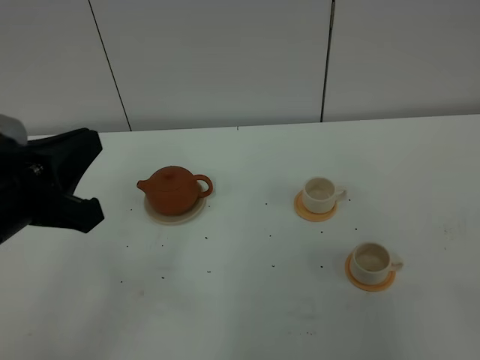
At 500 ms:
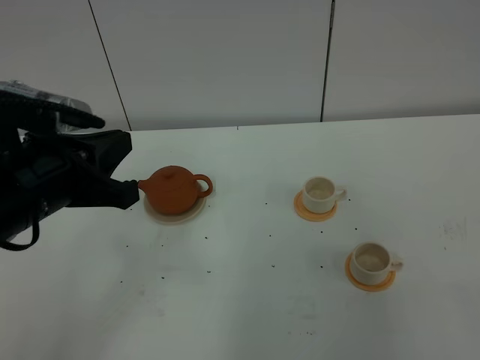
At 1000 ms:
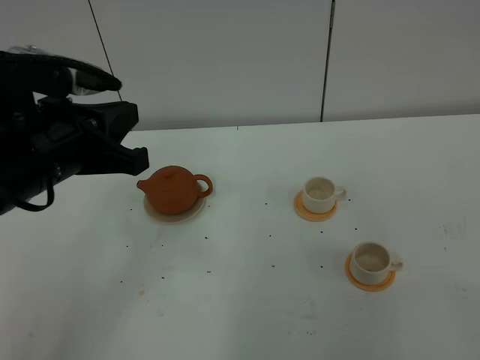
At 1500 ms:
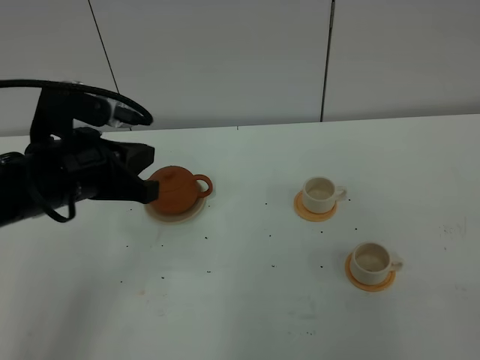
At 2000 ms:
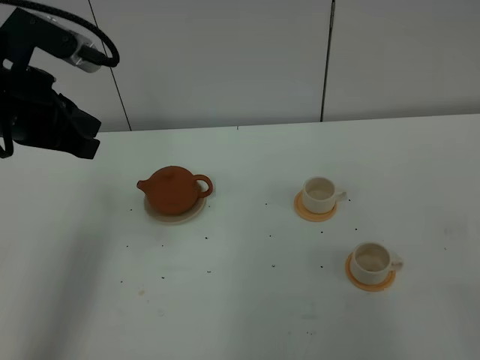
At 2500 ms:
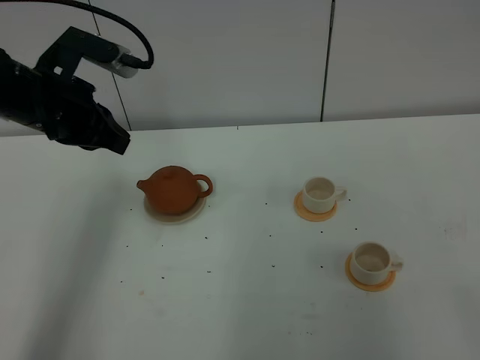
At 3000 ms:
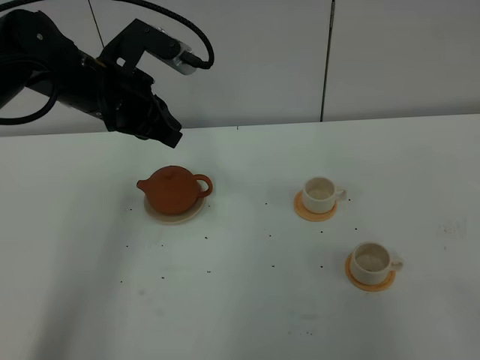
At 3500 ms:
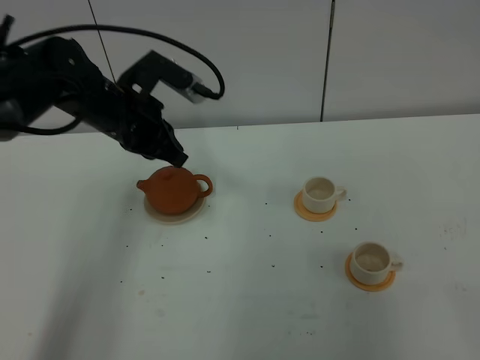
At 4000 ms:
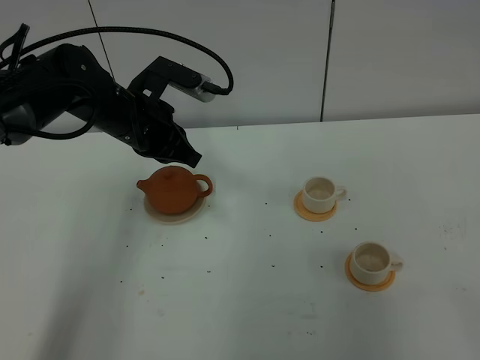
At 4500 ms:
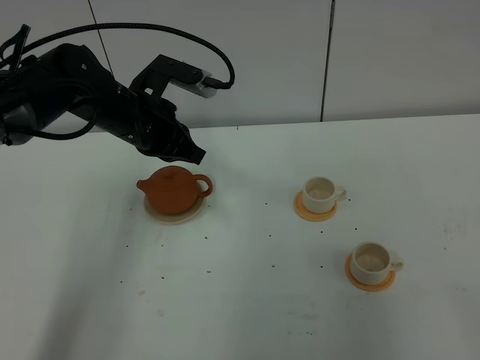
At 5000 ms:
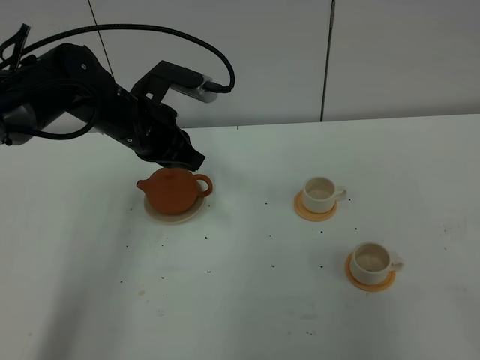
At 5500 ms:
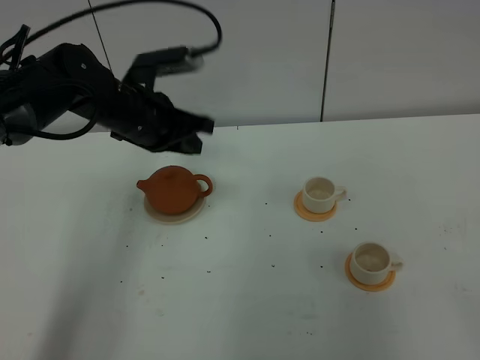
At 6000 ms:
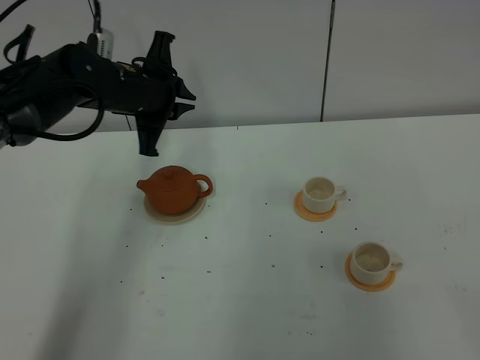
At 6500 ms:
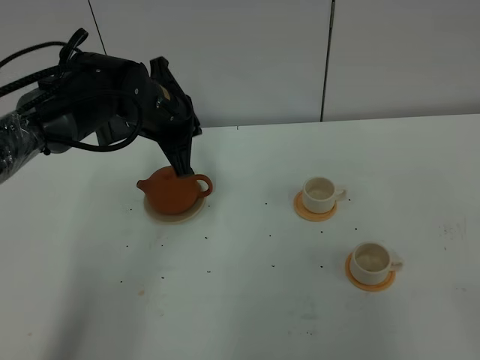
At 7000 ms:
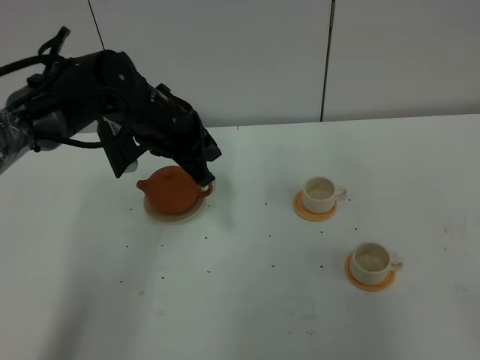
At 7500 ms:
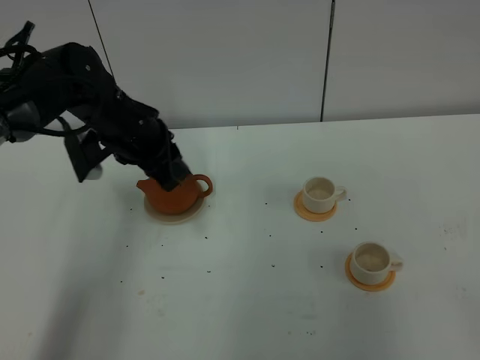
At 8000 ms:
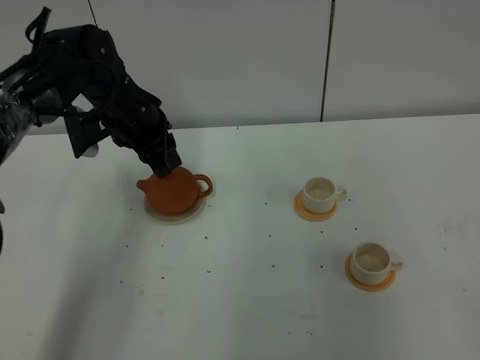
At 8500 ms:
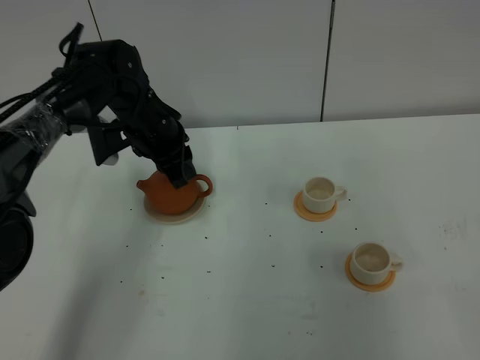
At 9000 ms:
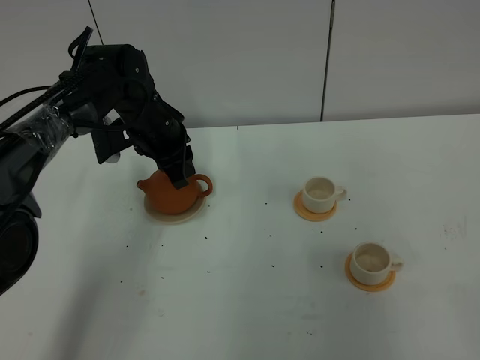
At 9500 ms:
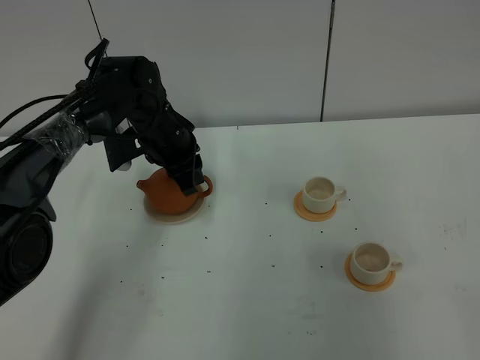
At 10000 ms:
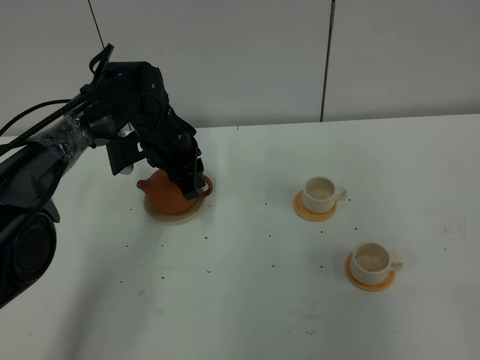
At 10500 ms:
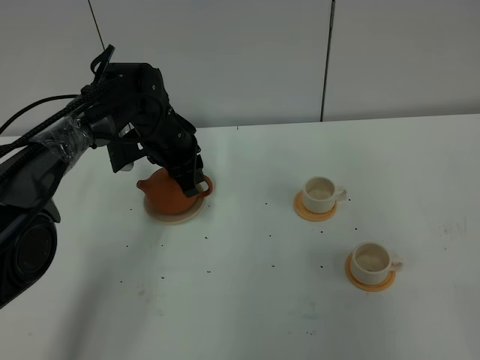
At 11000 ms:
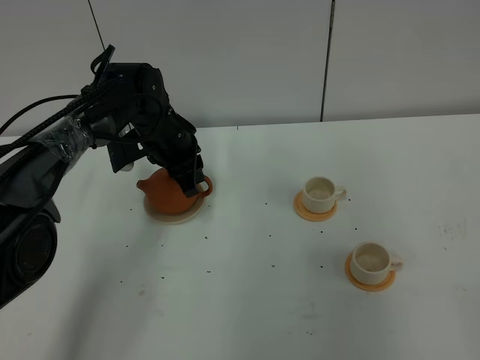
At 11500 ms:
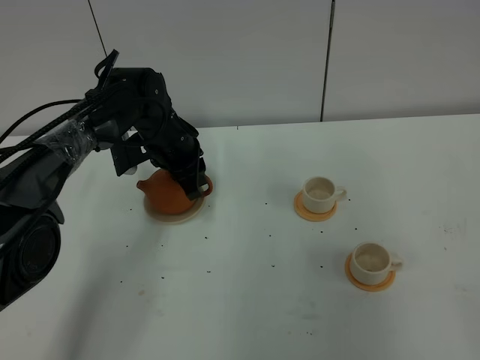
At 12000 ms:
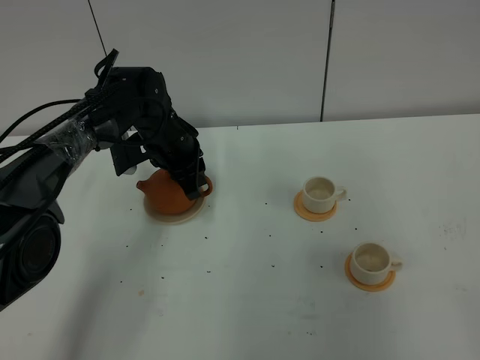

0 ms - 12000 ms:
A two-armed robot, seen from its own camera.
Task of the whole recording: grasp the brown teapot and pour the tea into the two white teacups one by one, put the brown teapot back in its original place.
0 ms - 2000 ms: The left gripper is displaced forward by some 15 cm.
2000 ms - 4000 ms: The left gripper moves downward, forward and to the right, approximately 15 cm.
6000 ms - 8000 ms: The left gripper opens up.
8000 ms - 10000 ms: The left gripper moves downward, some 5 cm.
10000 ms - 12000 ms: The two grippers keep their place.

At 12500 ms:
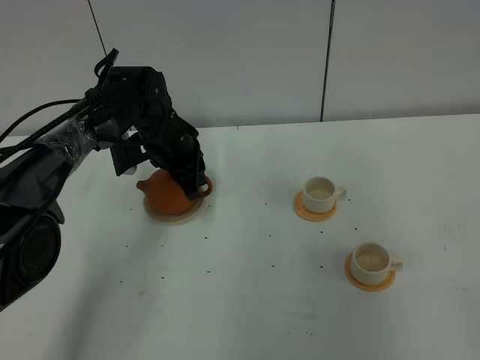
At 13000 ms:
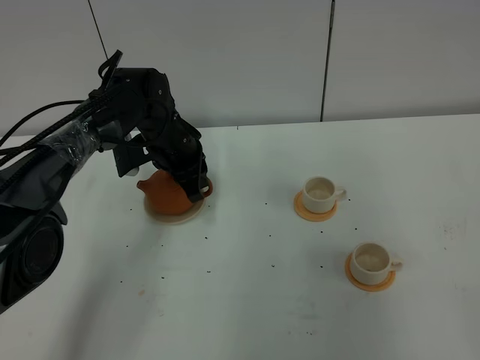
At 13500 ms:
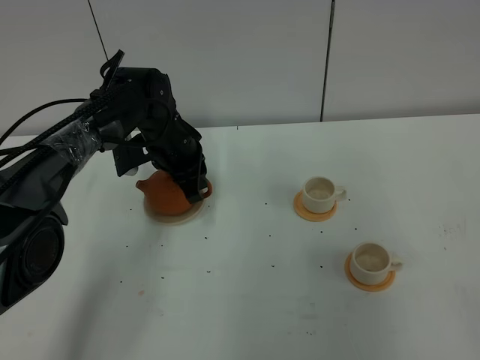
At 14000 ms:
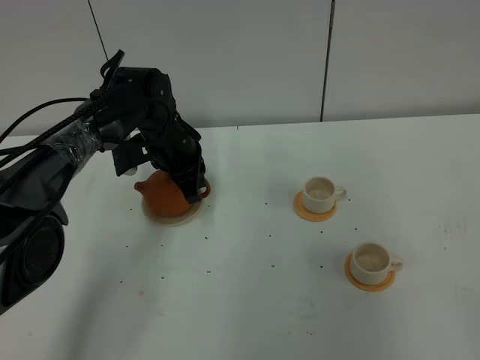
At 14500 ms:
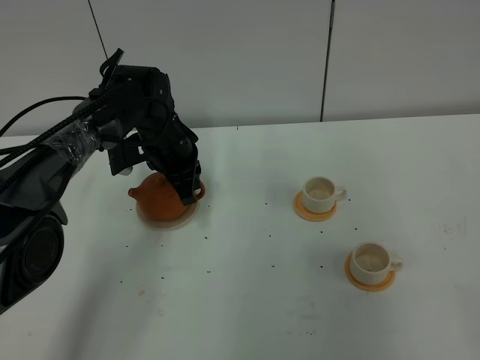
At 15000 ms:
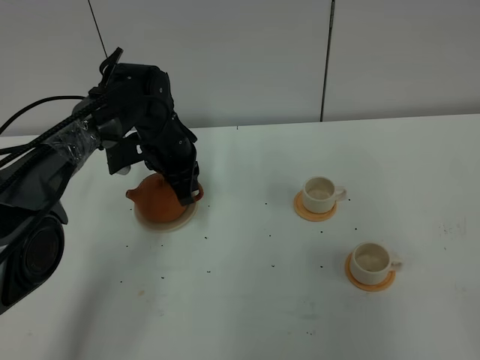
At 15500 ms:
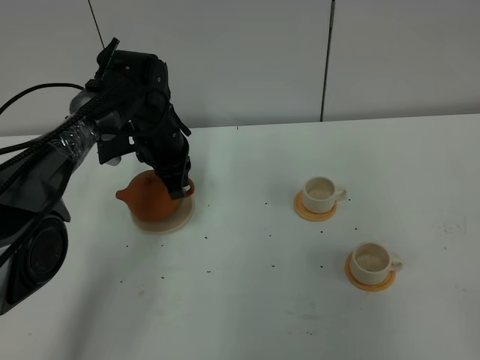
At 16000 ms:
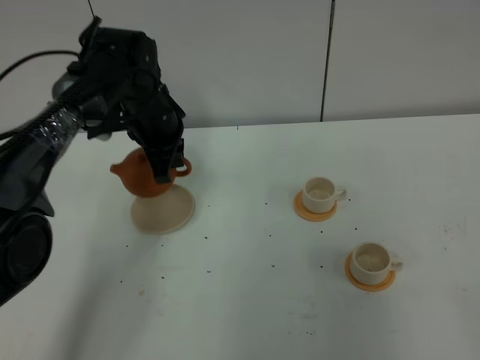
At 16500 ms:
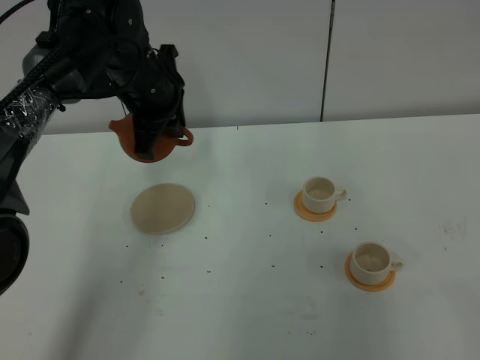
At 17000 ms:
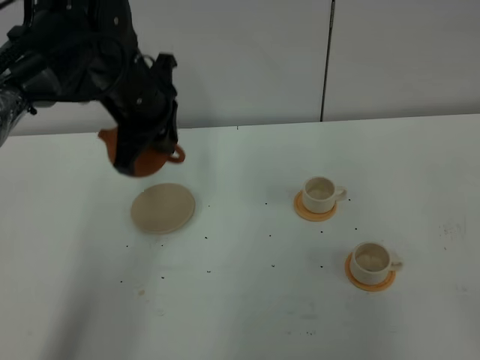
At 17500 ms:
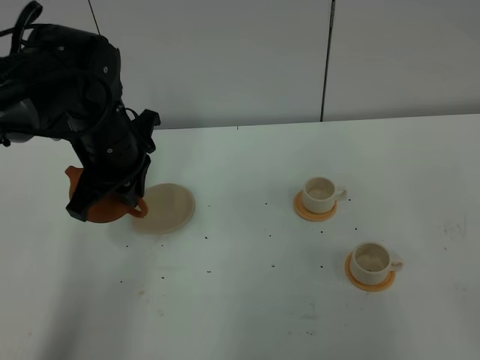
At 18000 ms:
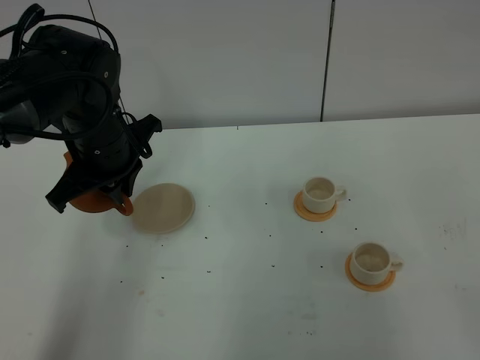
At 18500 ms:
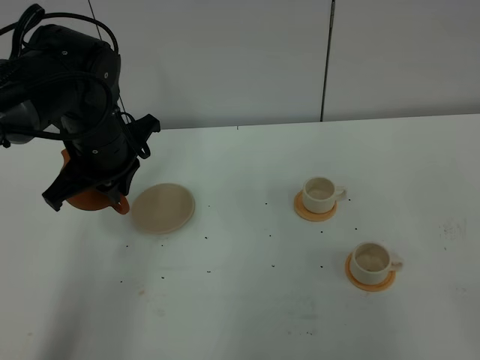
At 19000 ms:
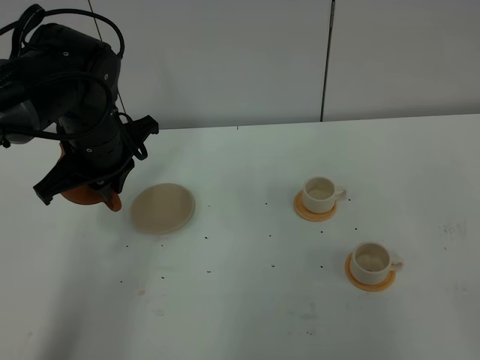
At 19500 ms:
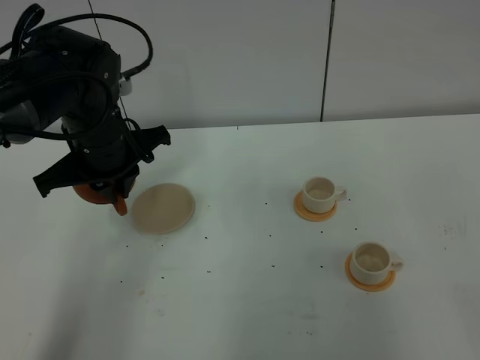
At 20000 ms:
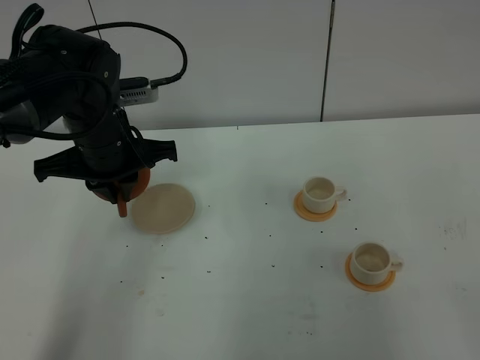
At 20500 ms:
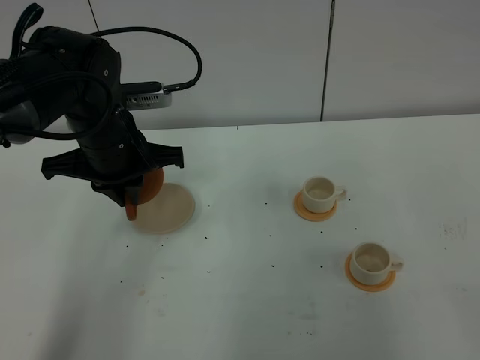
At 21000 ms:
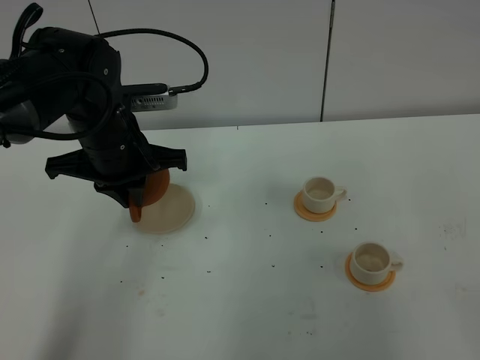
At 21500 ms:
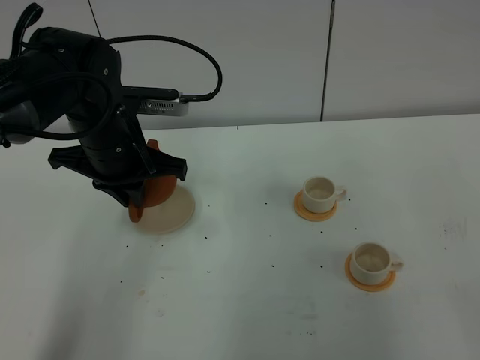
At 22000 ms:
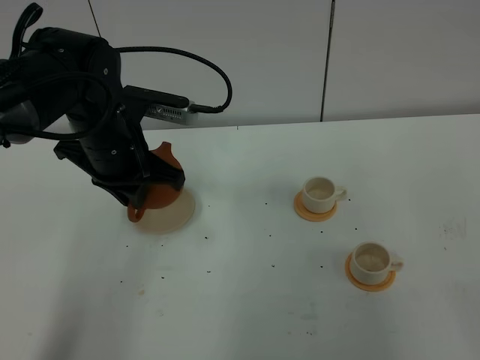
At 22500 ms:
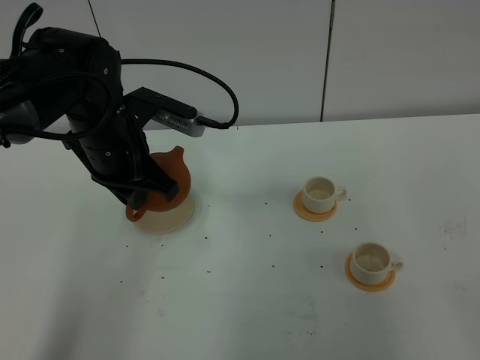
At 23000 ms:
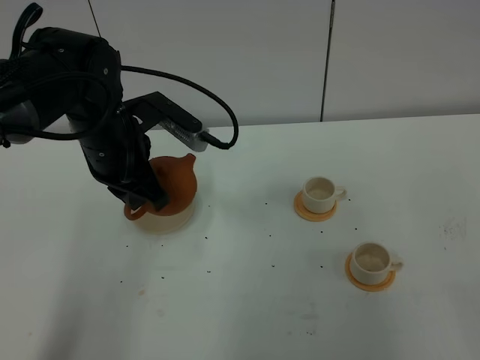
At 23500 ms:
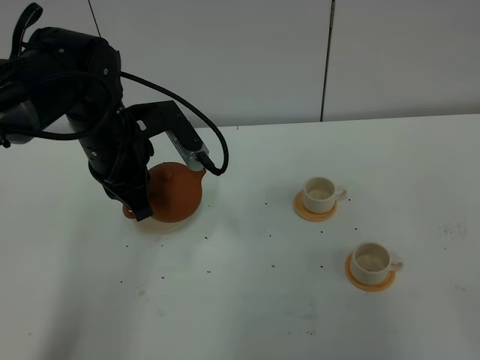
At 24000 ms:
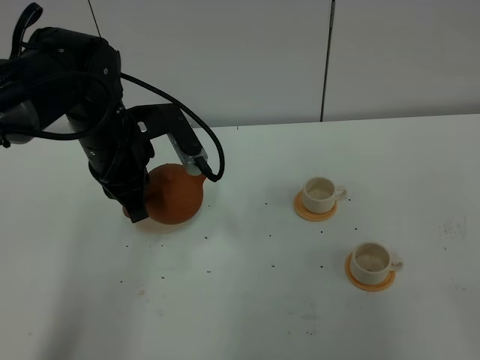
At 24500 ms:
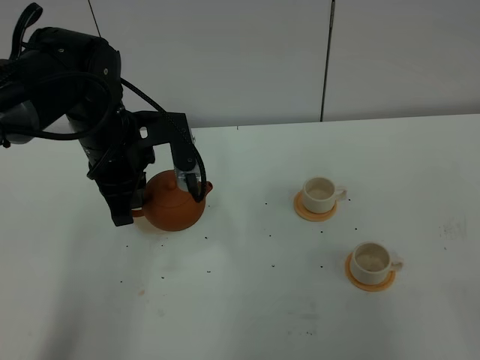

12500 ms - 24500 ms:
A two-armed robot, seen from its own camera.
Task of the whole recording: grasp the brown teapot and pour the tea into the two white teacups one by one, put the brown teapot back in its original place.
Step, 12500 ms - 15500 ms: Pick up the teapot with the left gripper.
12500 ms - 14500 ms: The left gripper closes up.
14500 ms - 16500 ms: The left gripper moves upward, approximately 10 cm.
16500 ms - 18500 ms: The left gripper is displaced backward by approximately 10 cm.

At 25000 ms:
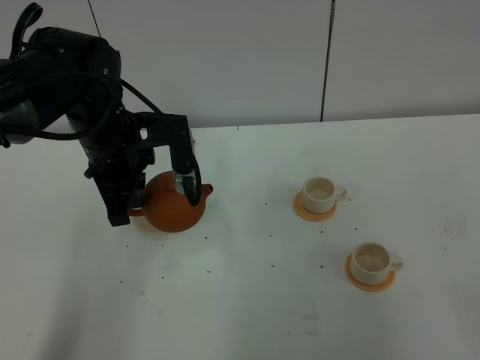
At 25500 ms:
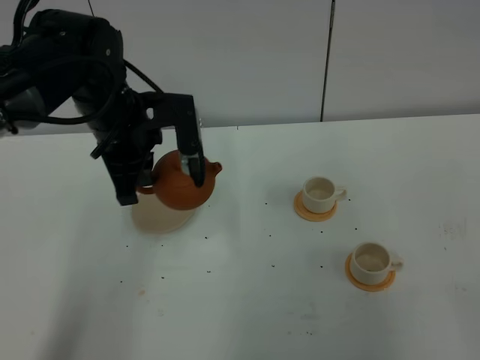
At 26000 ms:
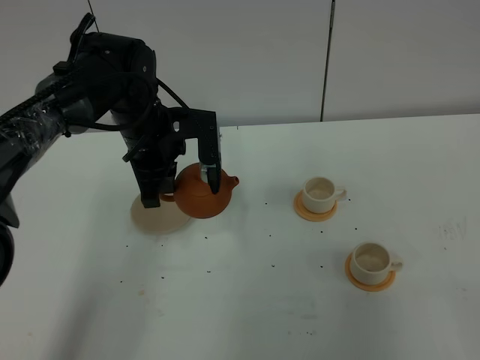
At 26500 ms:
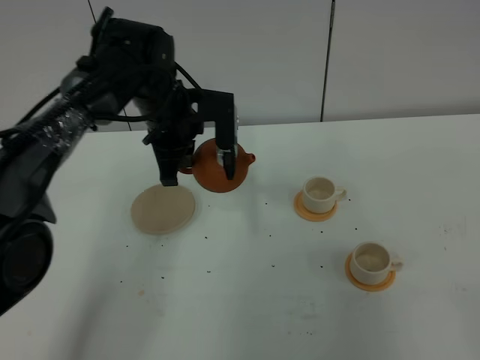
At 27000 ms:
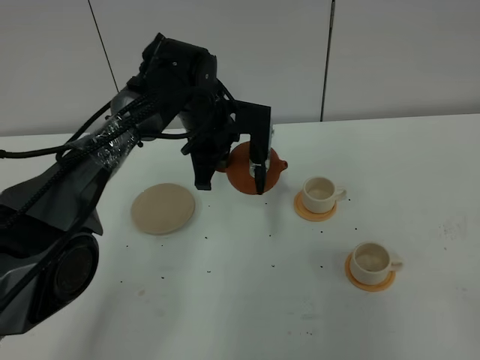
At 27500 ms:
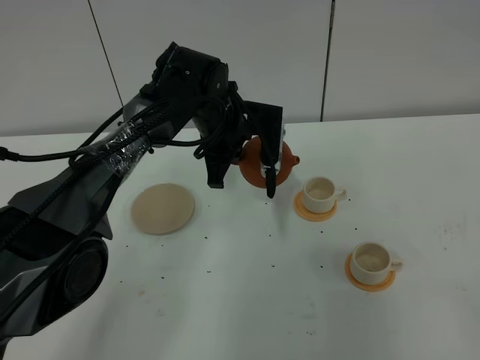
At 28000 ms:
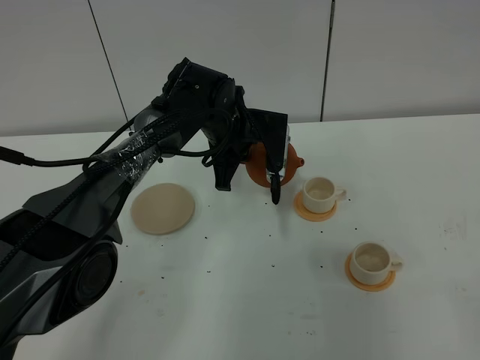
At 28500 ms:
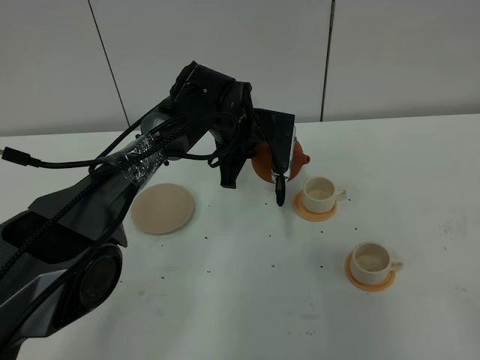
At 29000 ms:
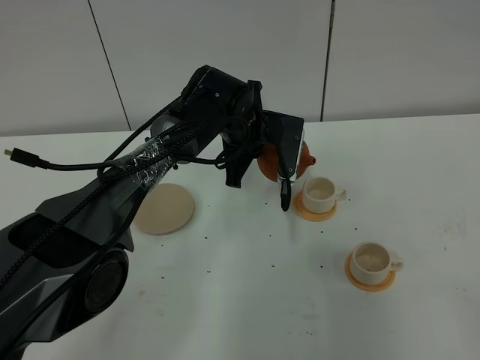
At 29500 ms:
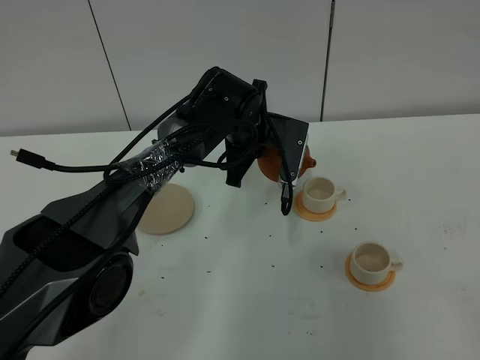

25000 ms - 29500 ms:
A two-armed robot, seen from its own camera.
Task of the whole recording: grasp the brown teapot and pour the tea into the two white teacups one by one, put the brown teapot back in its original place.
25000 ms - 27000 ms: The left gripper goes some 15 cm to the right, forward and downward.
27000 ms - 29500 ms: The left gripper travels to the right by approximately 5 cm.
